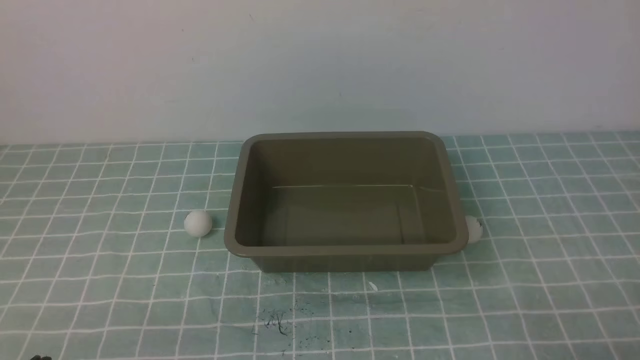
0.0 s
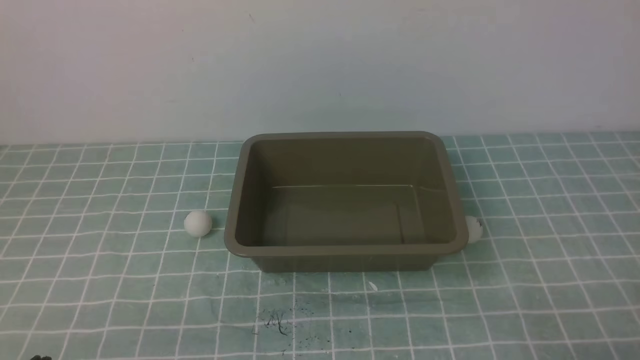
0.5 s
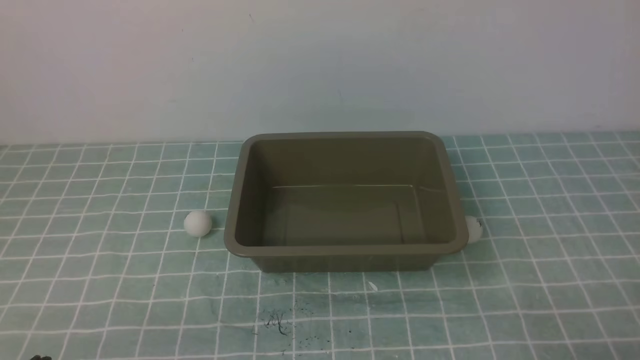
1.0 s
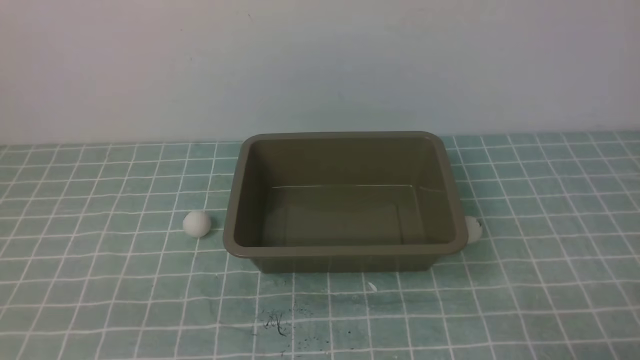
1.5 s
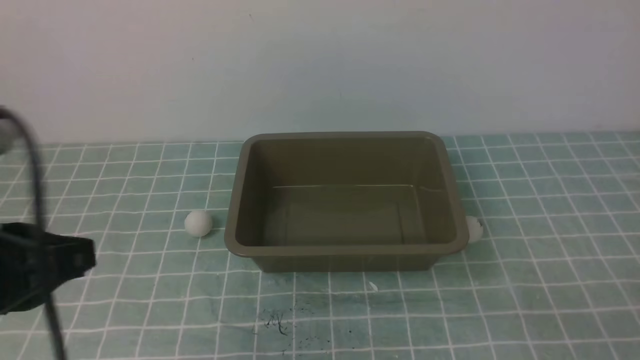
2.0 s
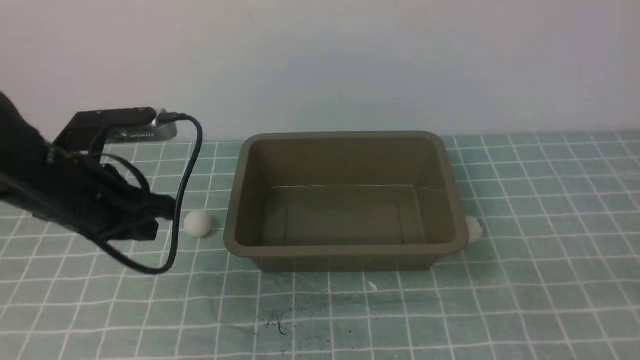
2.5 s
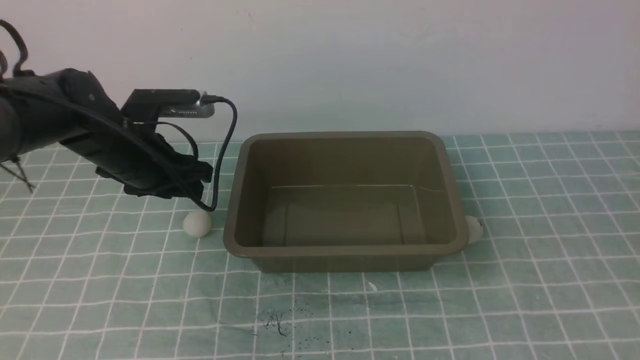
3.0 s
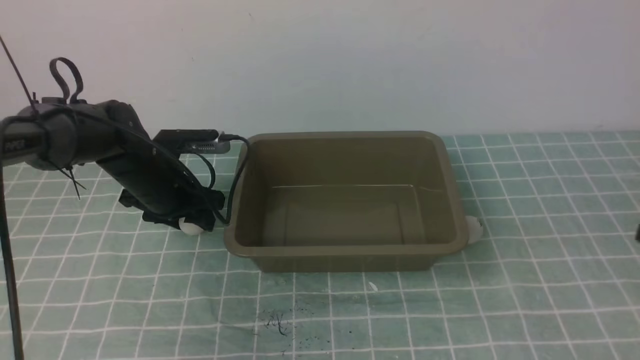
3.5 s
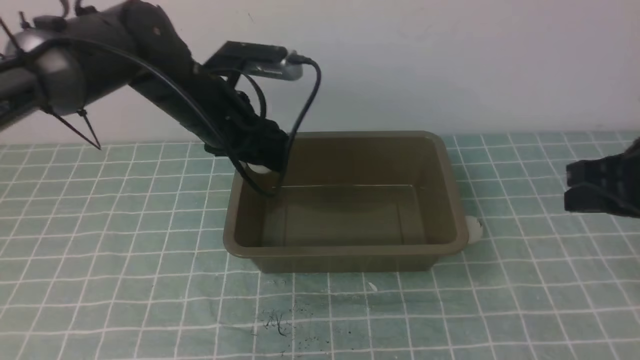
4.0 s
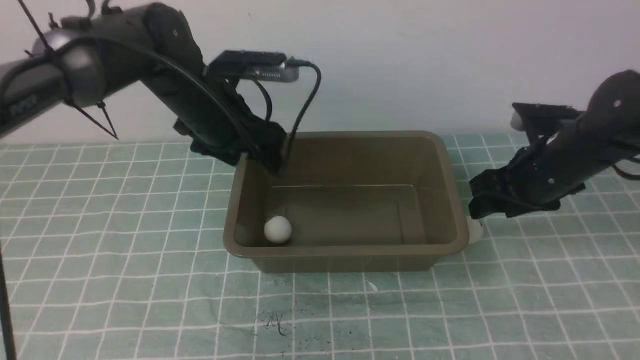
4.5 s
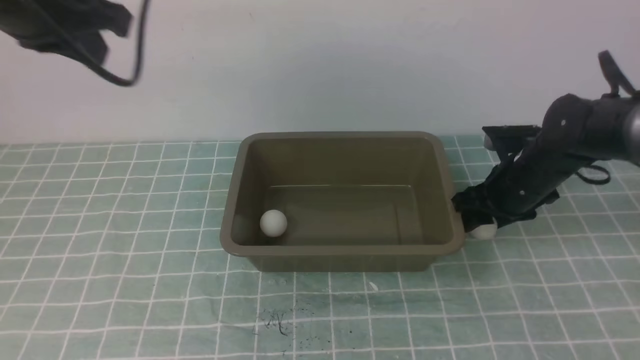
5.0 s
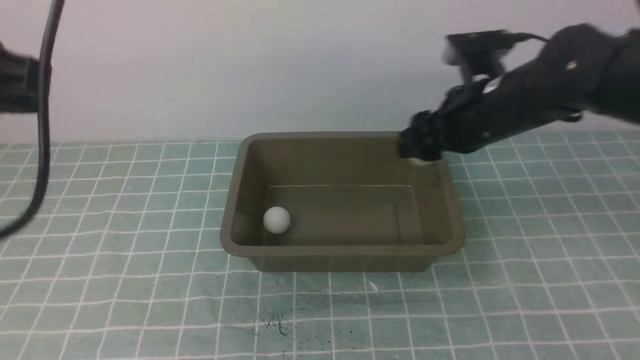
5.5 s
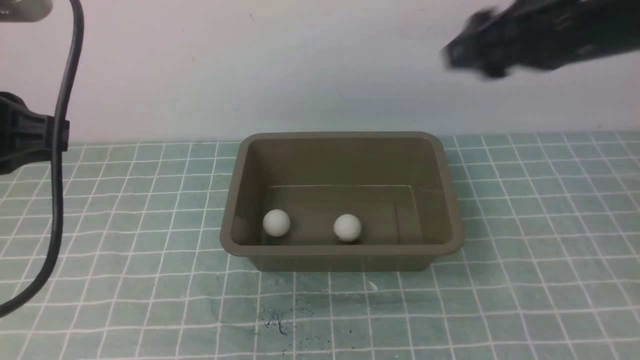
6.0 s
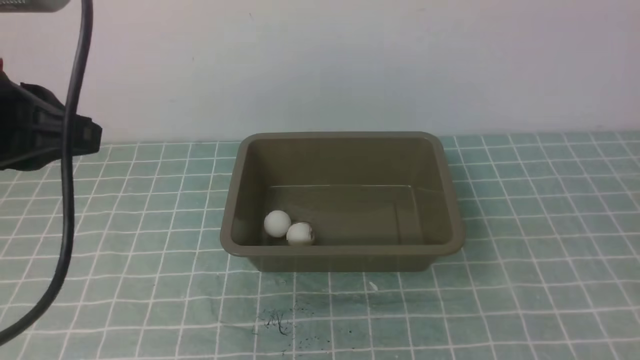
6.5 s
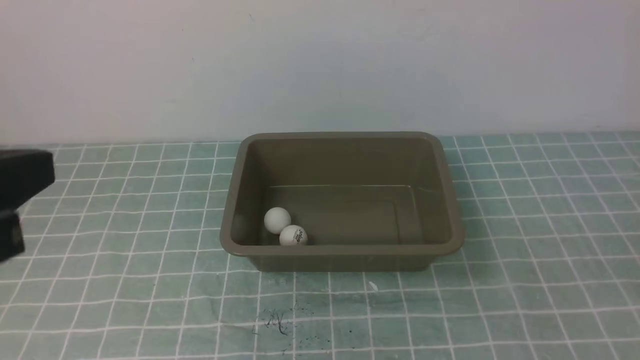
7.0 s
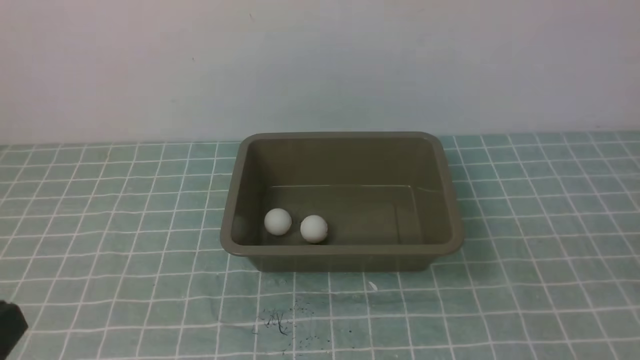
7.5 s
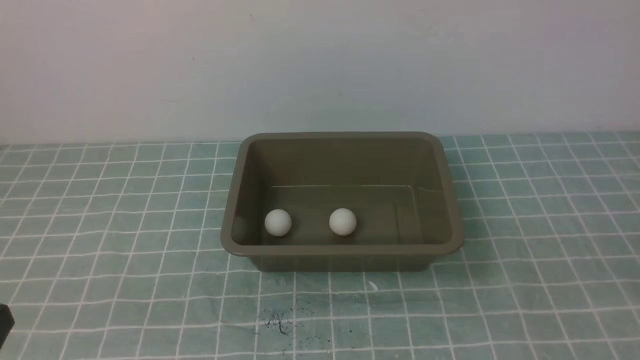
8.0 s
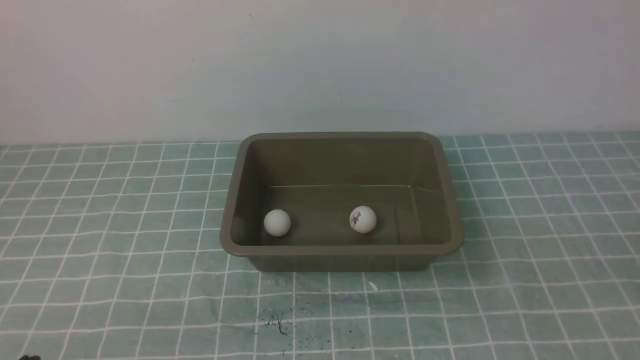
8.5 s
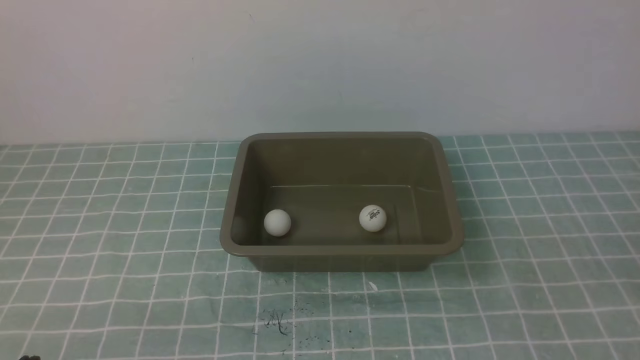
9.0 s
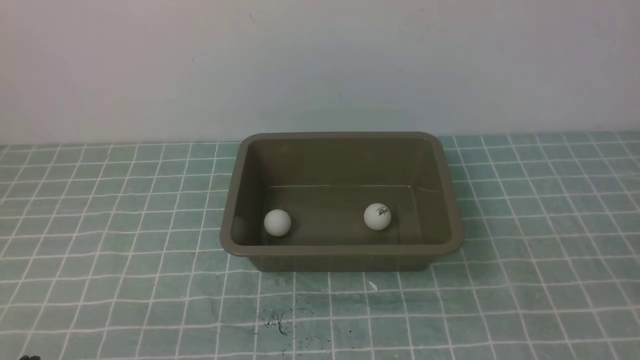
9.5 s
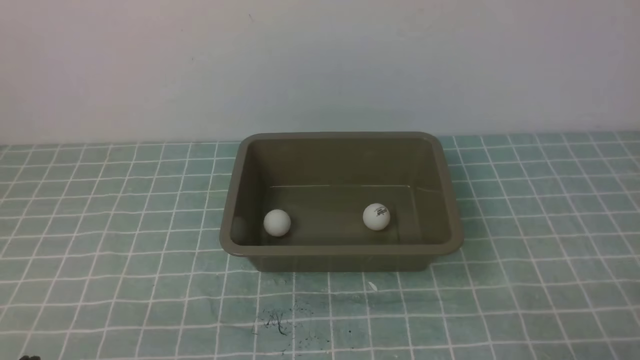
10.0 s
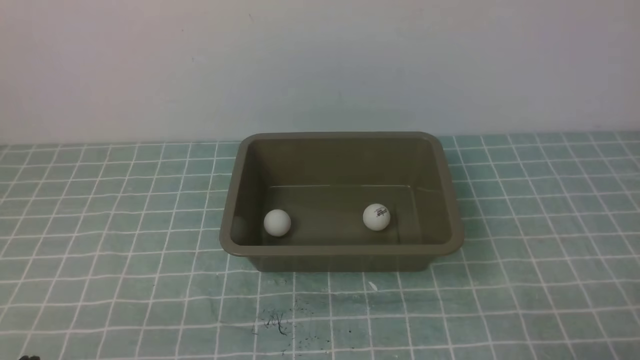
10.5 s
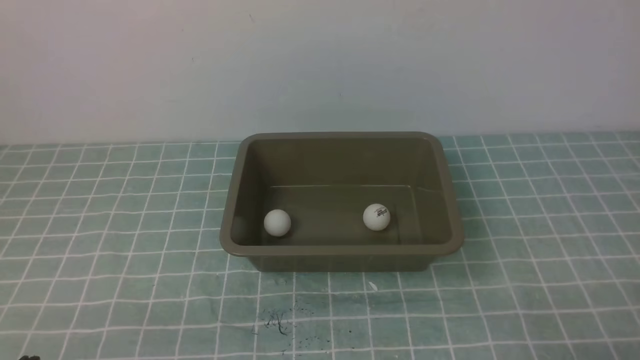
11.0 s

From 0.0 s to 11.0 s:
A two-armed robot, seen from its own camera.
Step, from 0.0 s to 3.5 s: use the left arm to clamp the table tennis ball closest to it.
Step, from 4.5 s to 5.0 s: use the right arm to clamp the table tennis ball closest to it.
From 2.0 s to 3.5 s: The right gripper travels upward and forward by some 15 cm. The left gripper shifts about 35 cm forward and downward, and opens its fingers.
From 3.5 s to 5.5 s: The left gripper moves upward and backward, approximately 35 cm, and closes up. The right gripper moves forward, roughly 25 cm, and opens.
From 5.5 s to 7.5 s: The right gripper heads backward, covering roughly 35 cm, and closes. Meanwhile the left gripper is displaced backward and downward by some 25 cm.
From 7.5 s to 9.0 s: The left gripper moves downward, some 15 cm.
